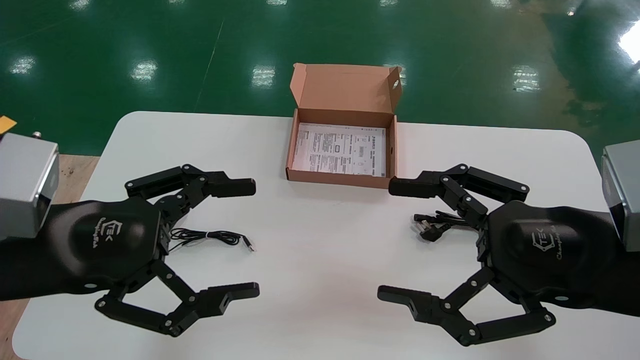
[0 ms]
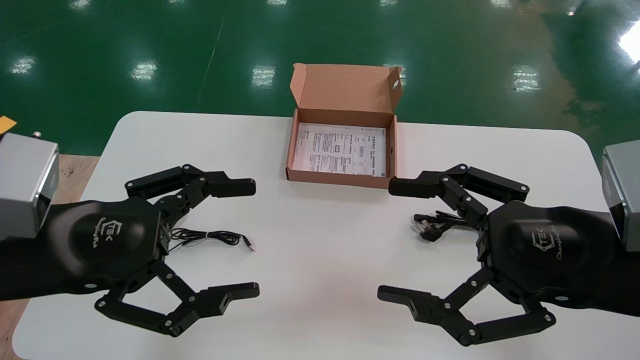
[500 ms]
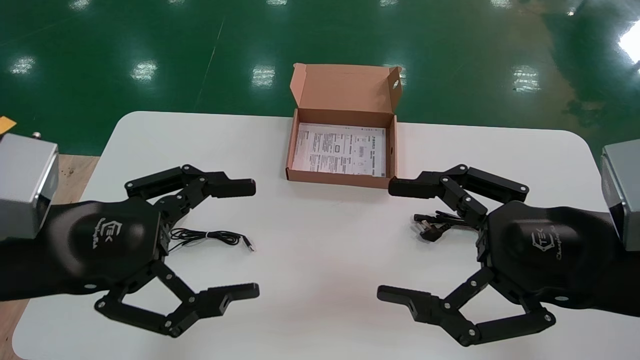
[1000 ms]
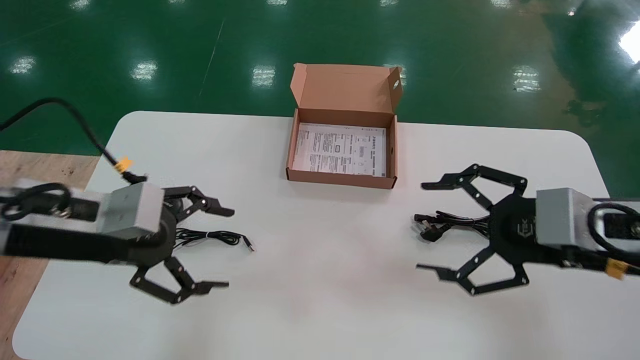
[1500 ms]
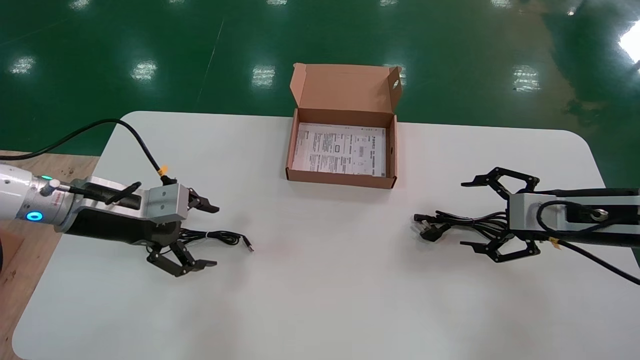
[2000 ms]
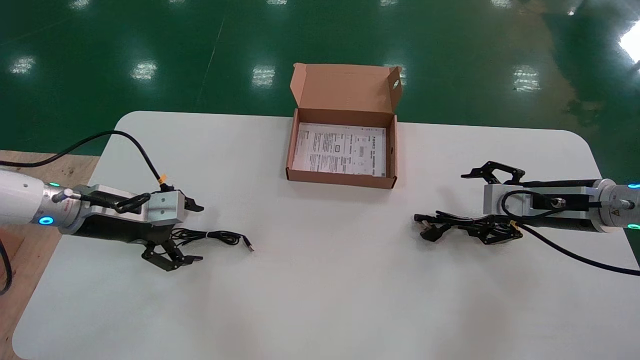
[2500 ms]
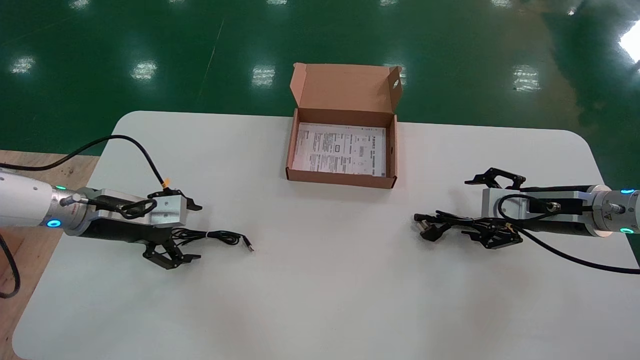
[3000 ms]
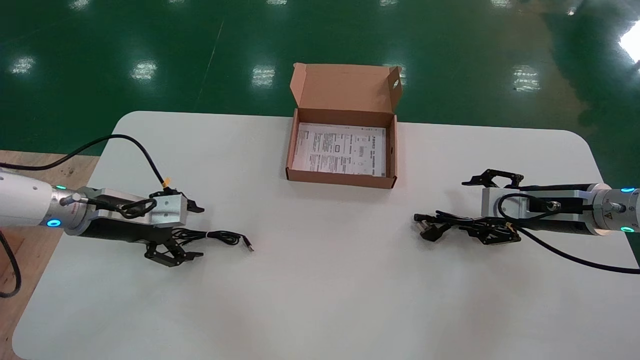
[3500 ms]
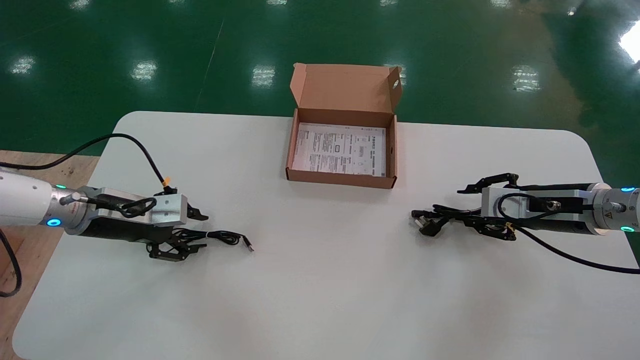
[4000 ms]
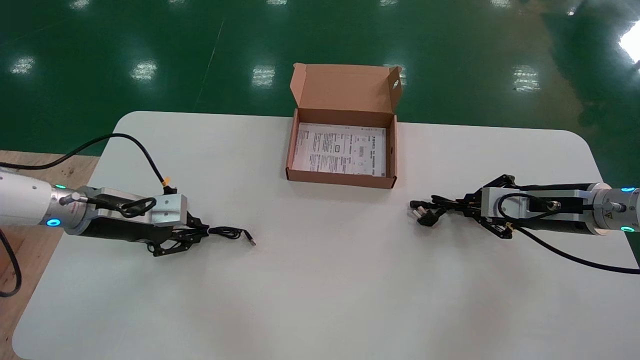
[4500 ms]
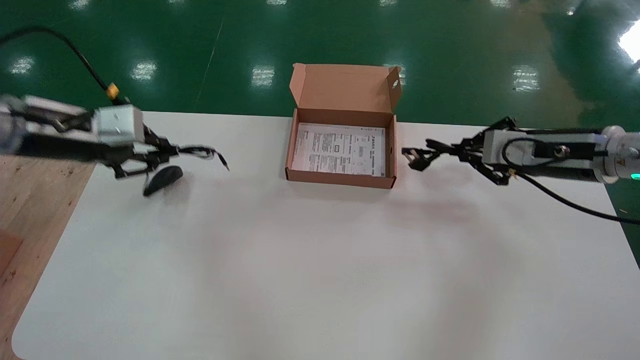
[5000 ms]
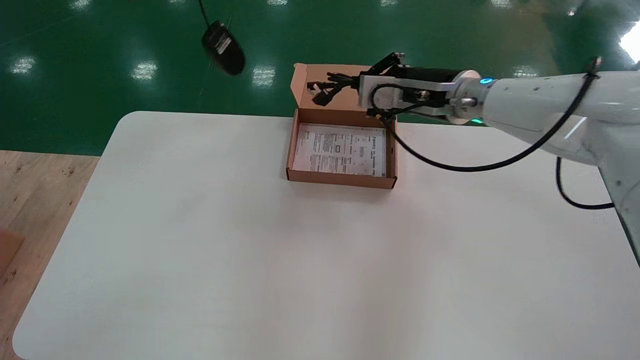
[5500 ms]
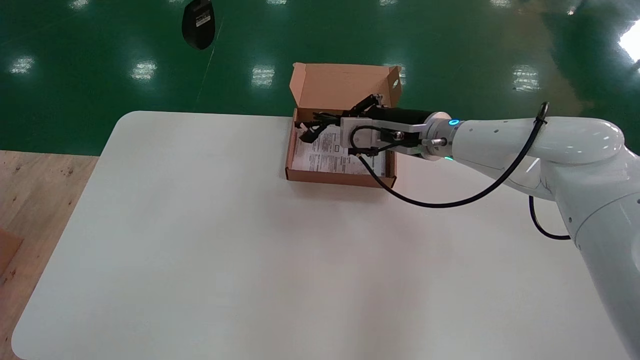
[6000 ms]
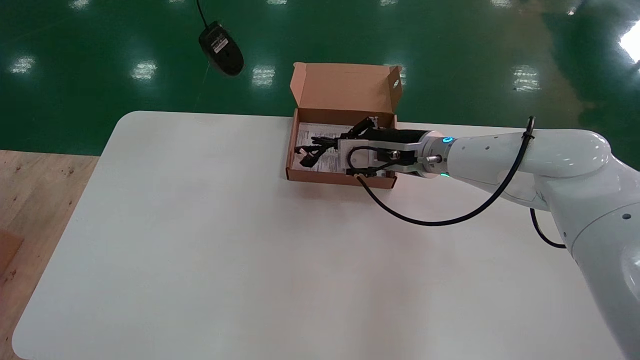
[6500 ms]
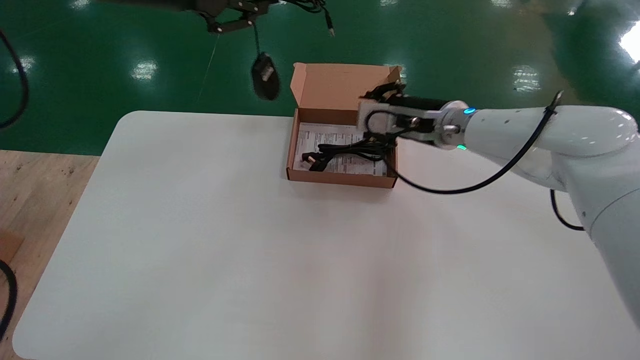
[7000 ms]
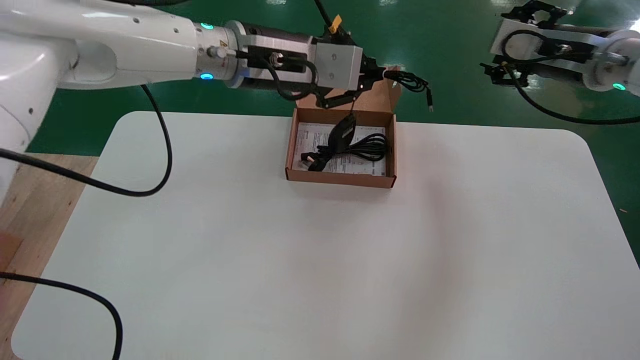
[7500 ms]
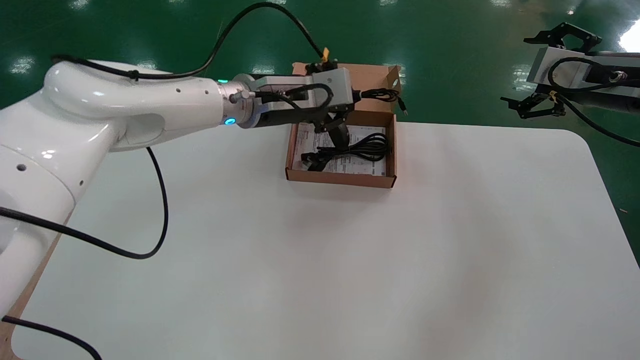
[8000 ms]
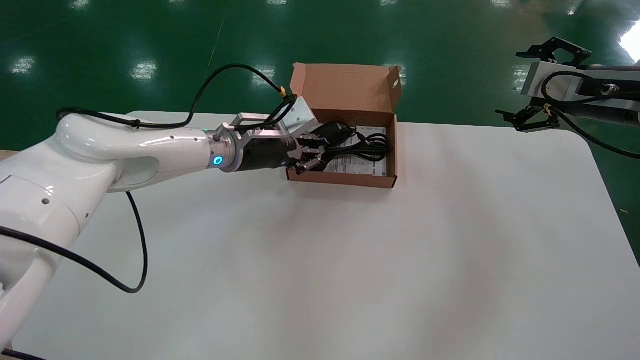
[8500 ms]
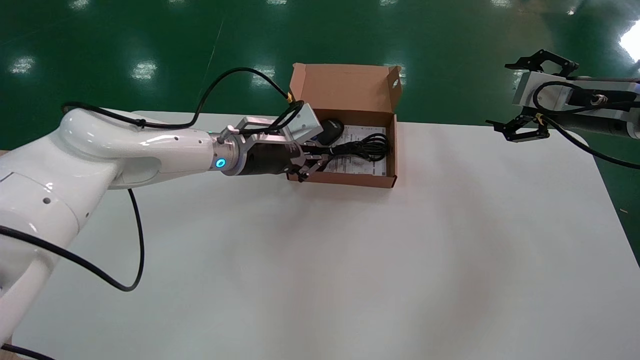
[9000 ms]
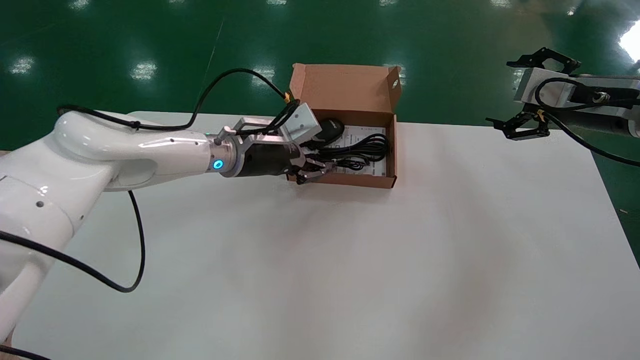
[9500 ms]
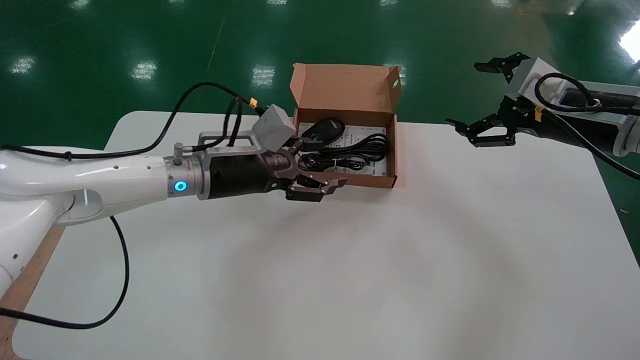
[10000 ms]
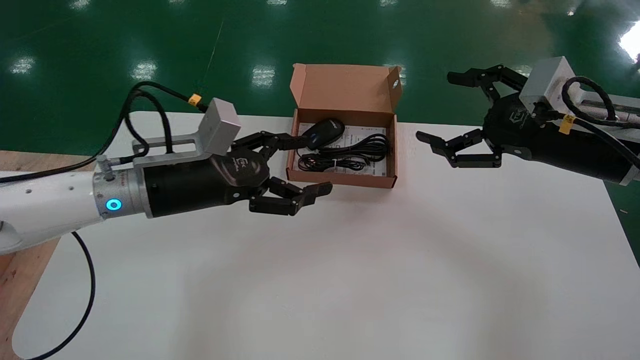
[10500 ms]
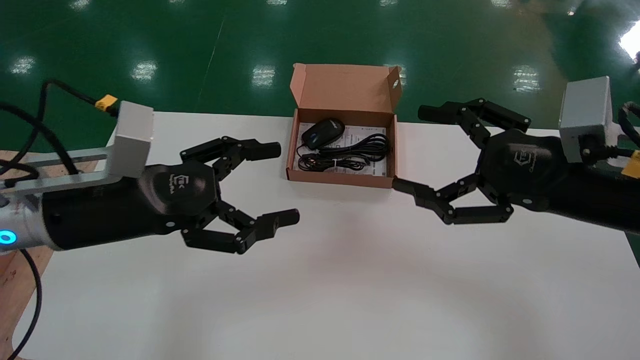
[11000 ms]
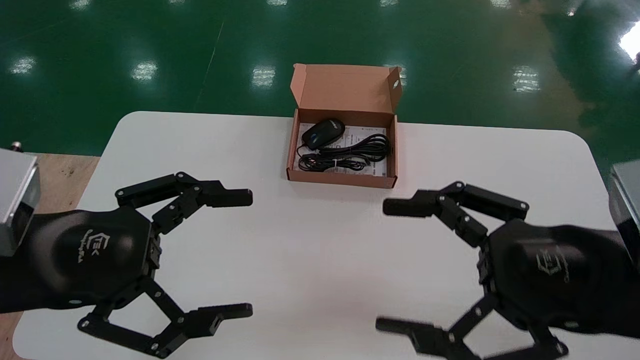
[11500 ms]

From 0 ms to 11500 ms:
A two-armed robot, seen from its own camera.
Step, from 1000 ms to 4500 ms: Simultaneously pick up the mouse and power cord from the accessory packaging area.
Step, from 5000 ms to 9500 ms: Place the mouse and power cord into the box.
From 0 ms to 2000 ms: The left gripper travels forward by roughly 15 cm. Meanwhile the right gripper shifts about 20 cm forward and to the right.
From 2000 ms to 4000 ms: The left gripper shifts by approximately 5 cm, and closes its fingers, while the right gripper goes some 5 cm forward, and closes its fingers.
From 4000 ms to 6000 ms: The left gripper goes approximately 35 cm upward, and closes. Meanwhile the right gripper travels to the left by some 20 cm, and closes up.
From 6000 ms to 7500 ms: The right gripper travels to the right and upward by about 20 cm, and opens. The left gripper moves to the right, downward and forward, about 20 cm.
From 7500 ms to 9500 ms: The right gripper moves some 5 cm, and opens. The left gripper goes roughly 15 cm downward.
From 9500 ms to 11500 ms: The two grippers go about 30 cm backward and to the left. The left gripper opens its fingers.

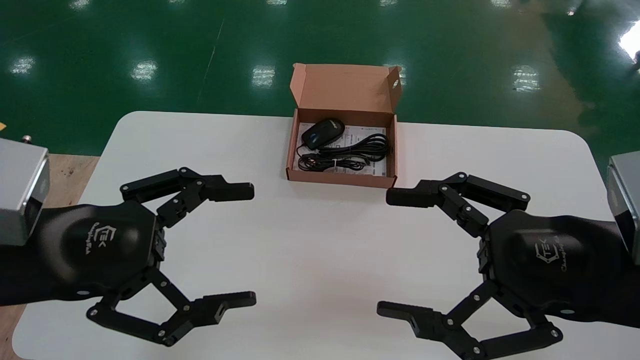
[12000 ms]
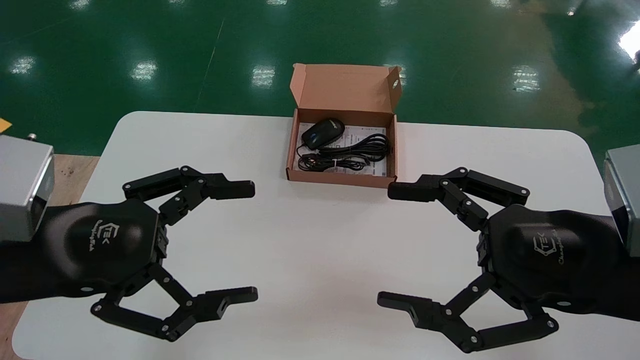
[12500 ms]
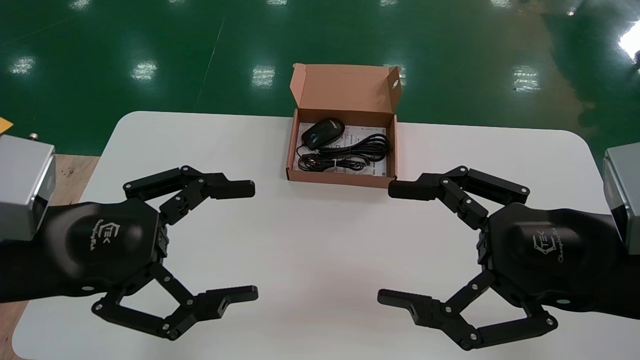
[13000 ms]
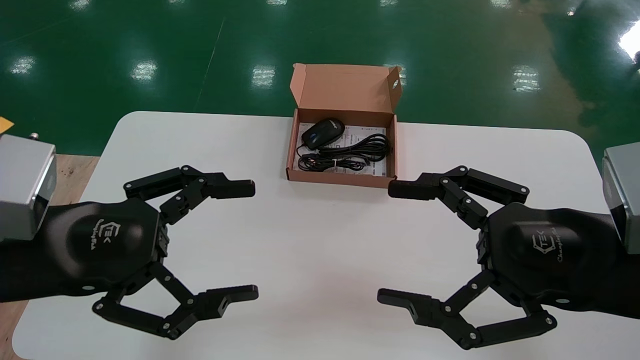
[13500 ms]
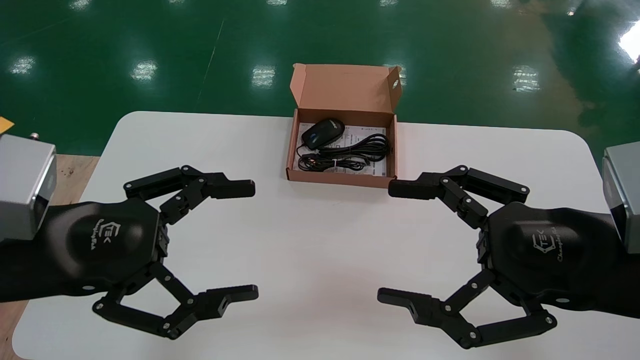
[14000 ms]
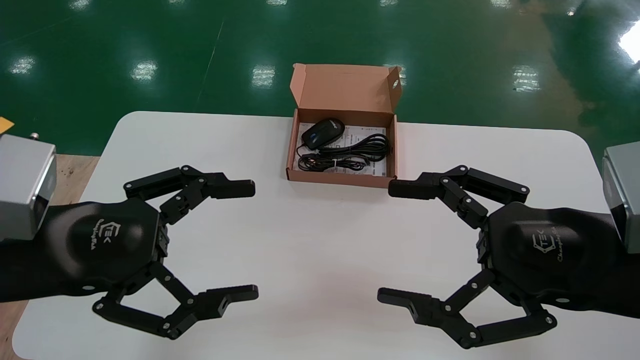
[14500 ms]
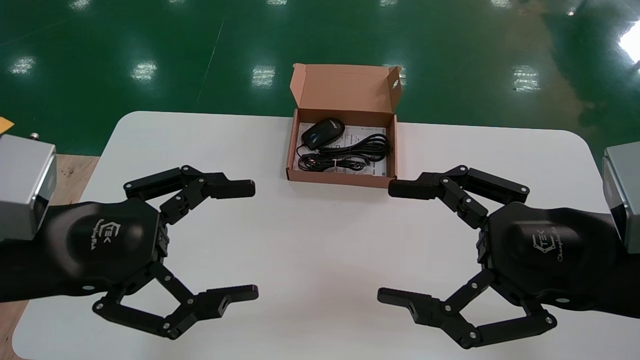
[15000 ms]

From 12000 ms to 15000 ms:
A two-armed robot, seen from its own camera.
From 12000 ms to 15000 ms: Neither gripper changes place.
